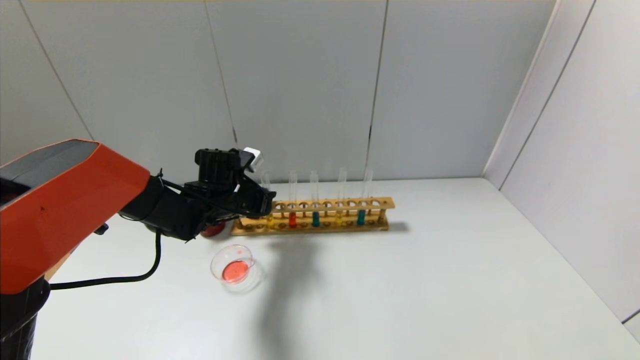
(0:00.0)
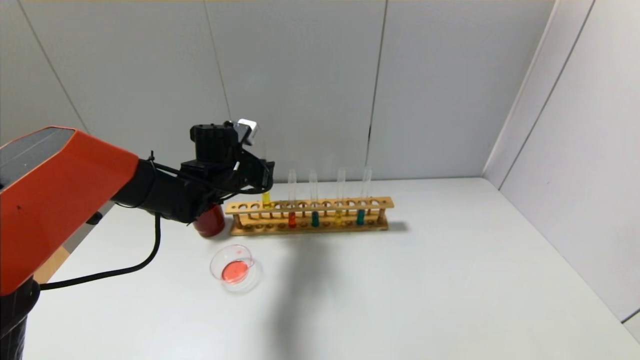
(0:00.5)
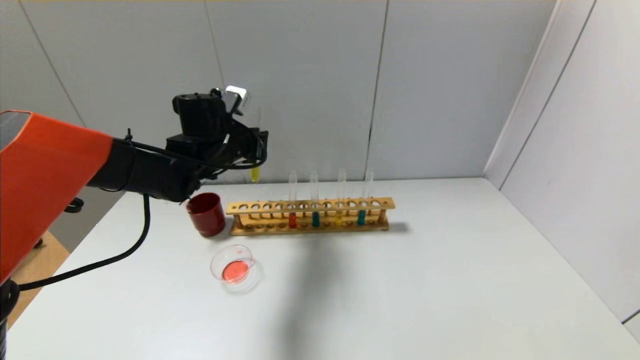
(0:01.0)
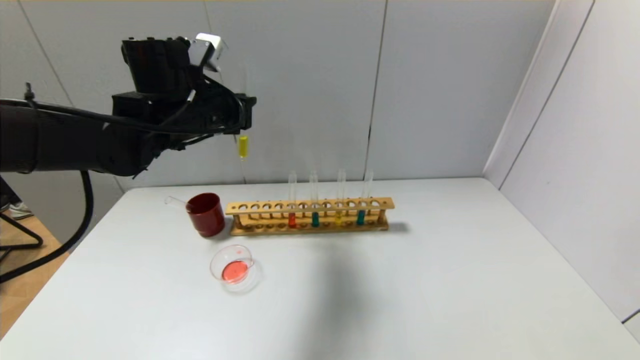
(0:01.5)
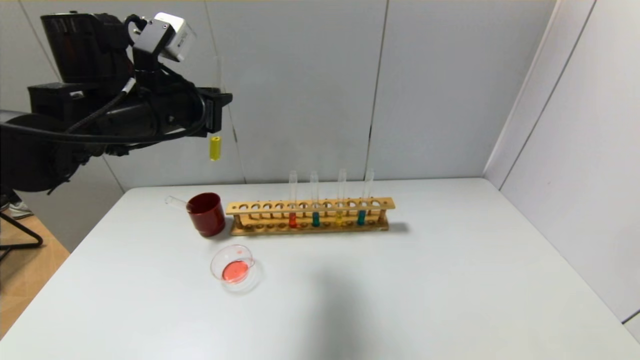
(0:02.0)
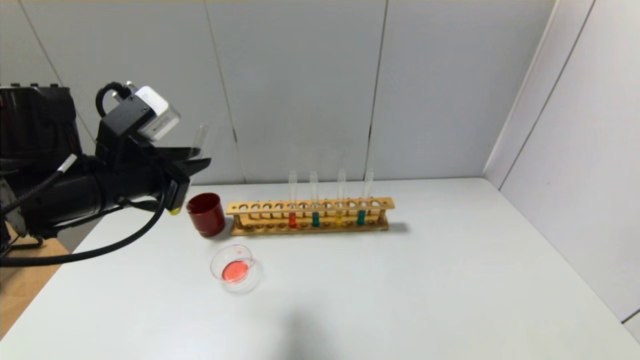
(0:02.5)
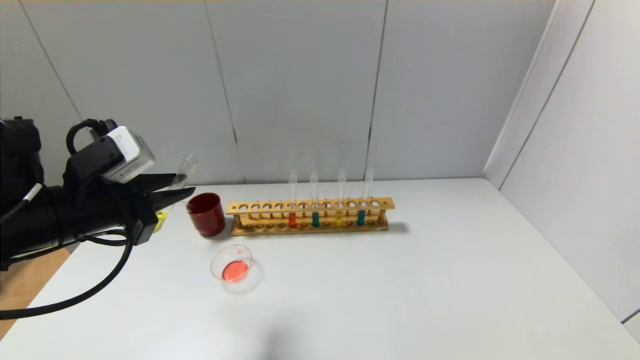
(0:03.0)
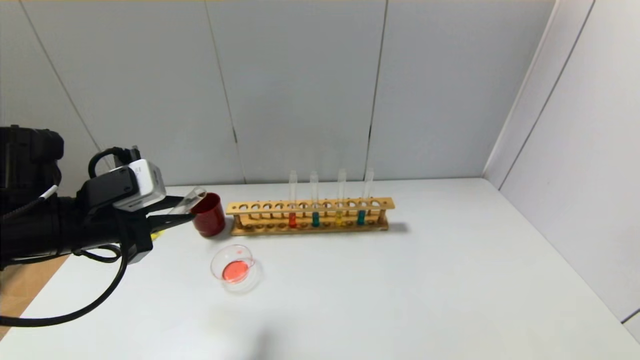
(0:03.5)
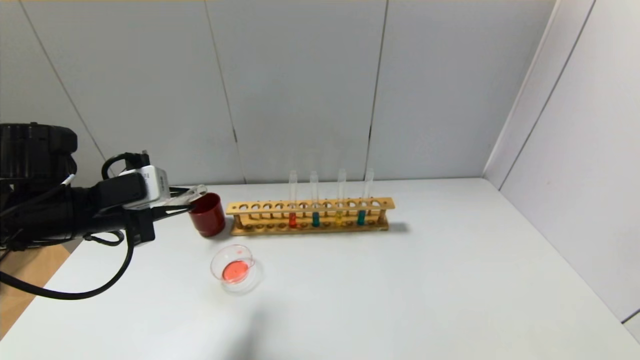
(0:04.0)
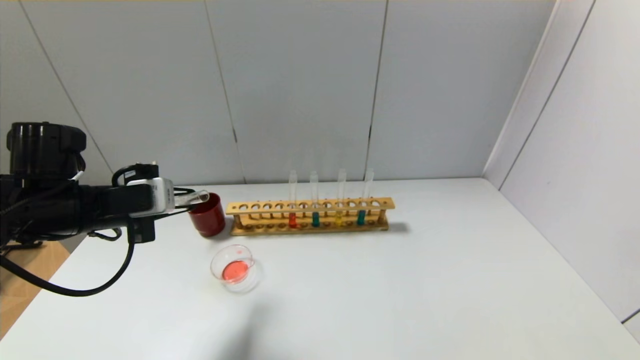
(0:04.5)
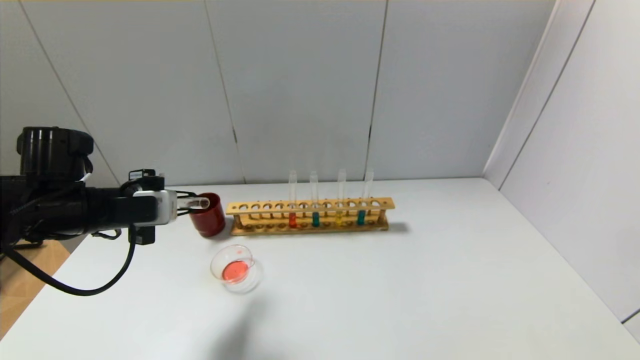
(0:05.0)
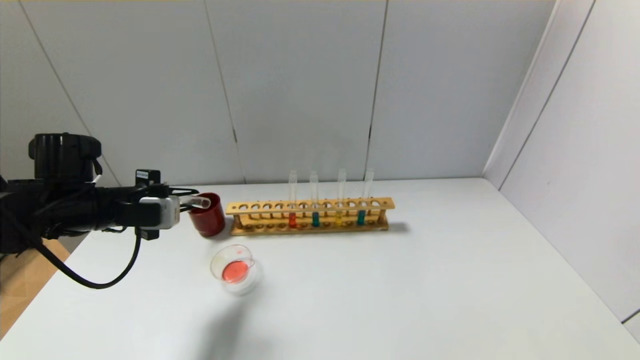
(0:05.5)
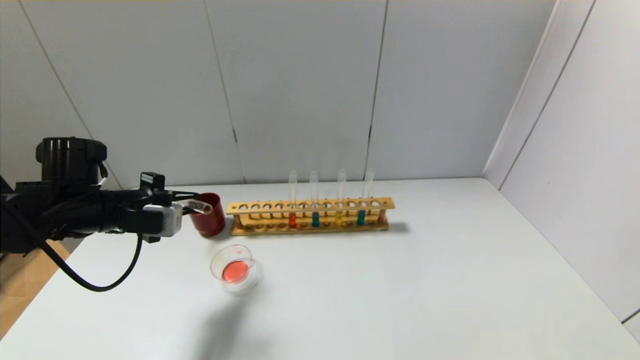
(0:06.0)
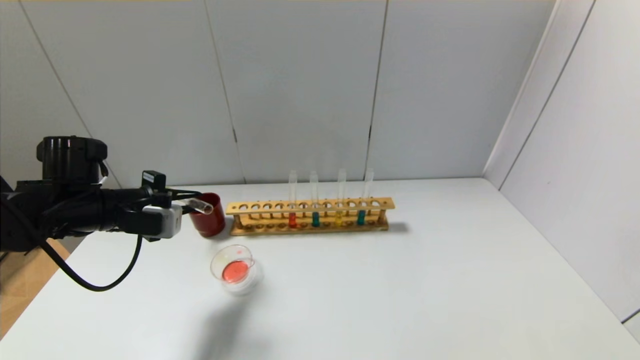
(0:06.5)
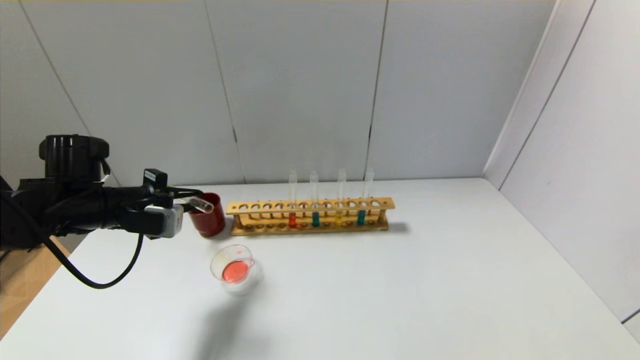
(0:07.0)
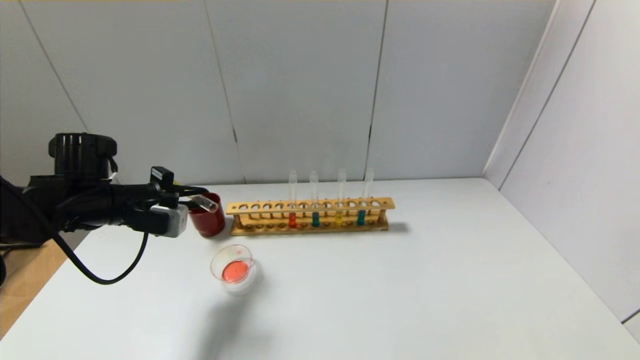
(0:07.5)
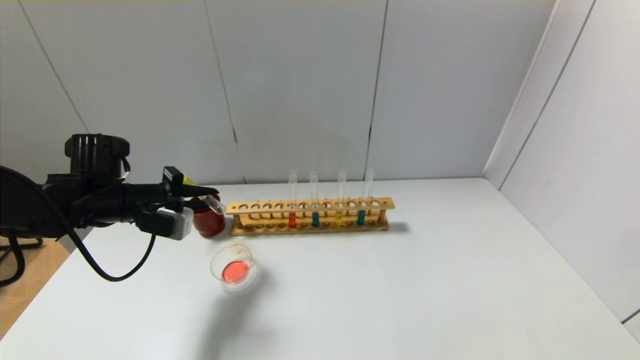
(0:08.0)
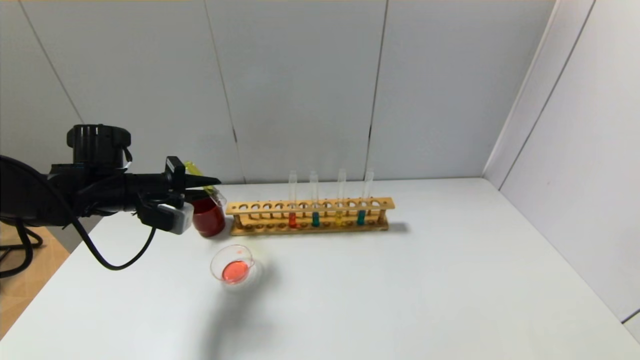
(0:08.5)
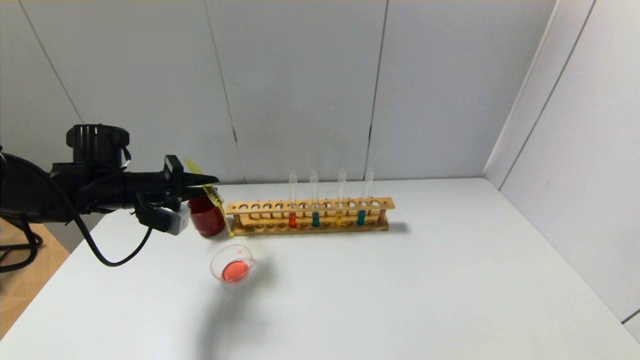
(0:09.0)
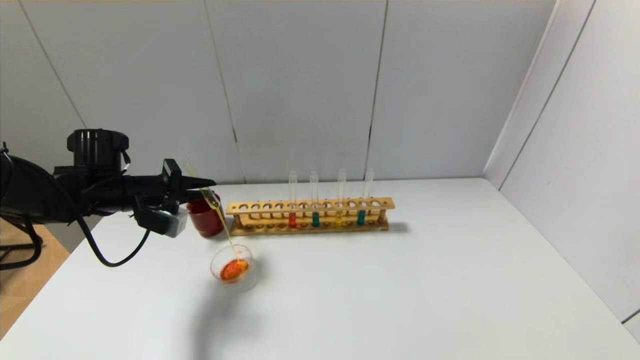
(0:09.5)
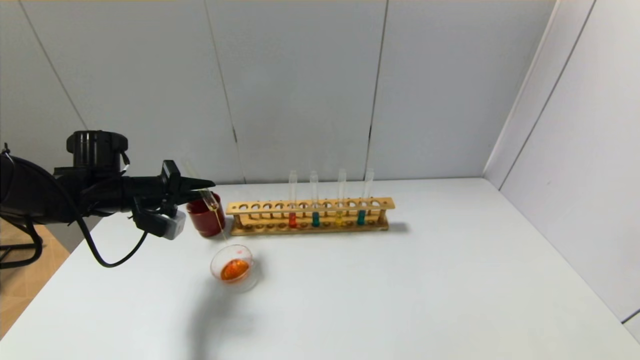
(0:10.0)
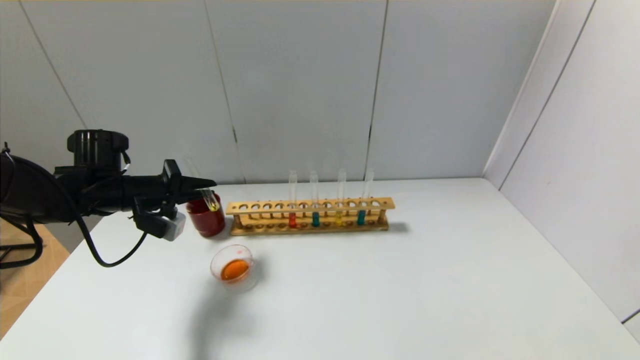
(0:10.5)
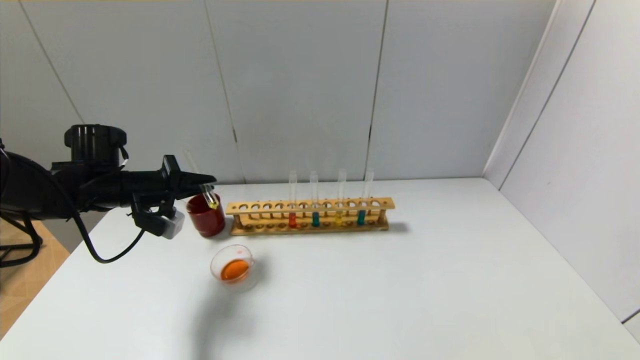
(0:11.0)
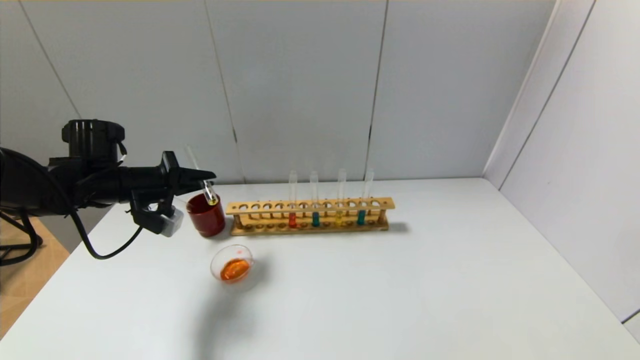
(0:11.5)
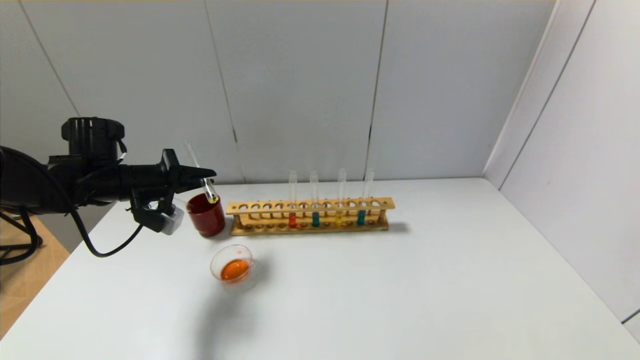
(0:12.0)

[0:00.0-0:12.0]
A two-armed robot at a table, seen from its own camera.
0:00.0 to 0:02.0: The left gripper heads upward and backward, covering roughly 20 cm.
0:02.0 to 0:04.0: The left gripper heads downward and to the left, covering about 15 cm.
0:04.0 to 0:06.0: The left gripper shifts by approximately 5 cm.
0:06.0 to 0:08.0: The grippers move only a little.
0:08.0 to 0:10.0: There are only small adjustments of the grippers.
0:10.0 to 0:12.0: The grippers move only a little.

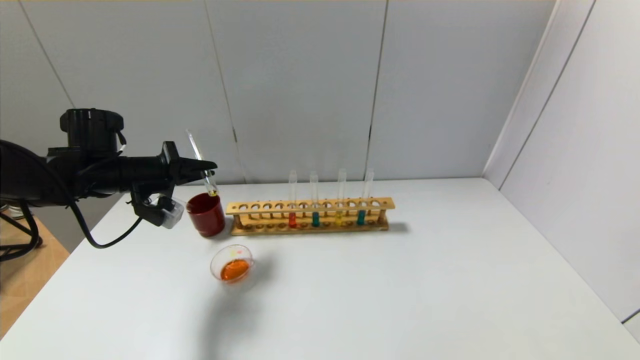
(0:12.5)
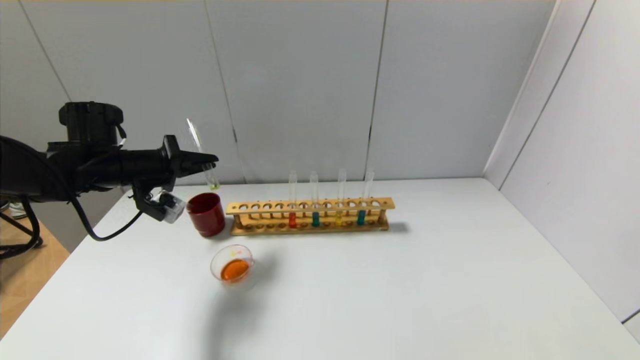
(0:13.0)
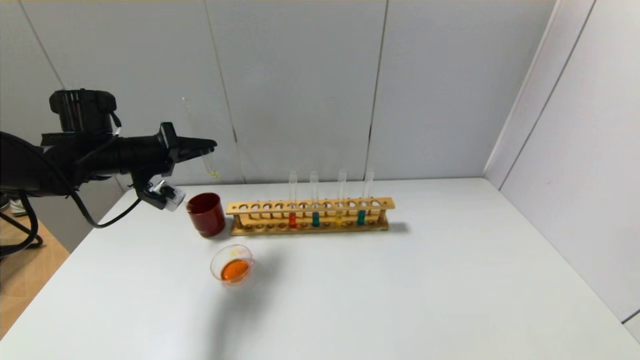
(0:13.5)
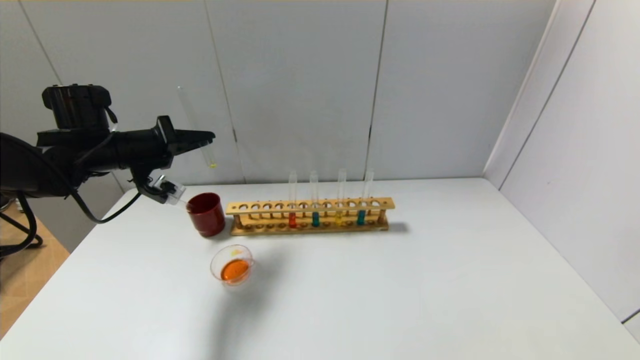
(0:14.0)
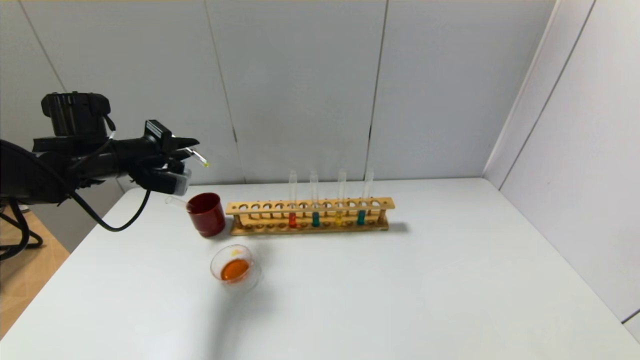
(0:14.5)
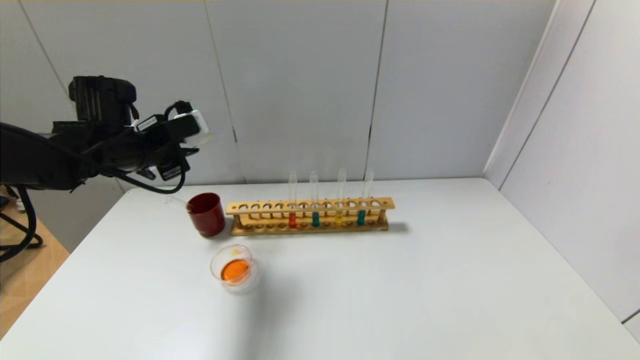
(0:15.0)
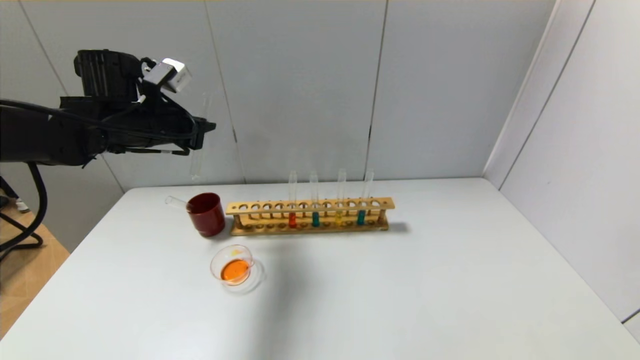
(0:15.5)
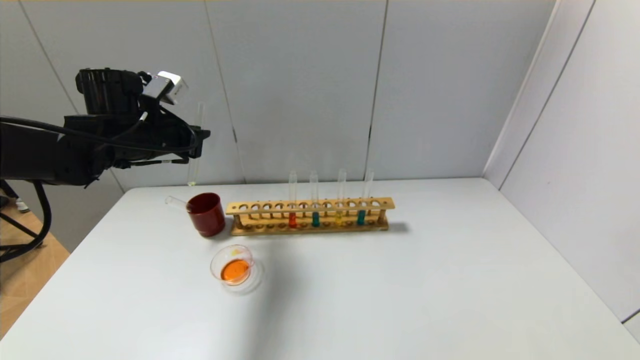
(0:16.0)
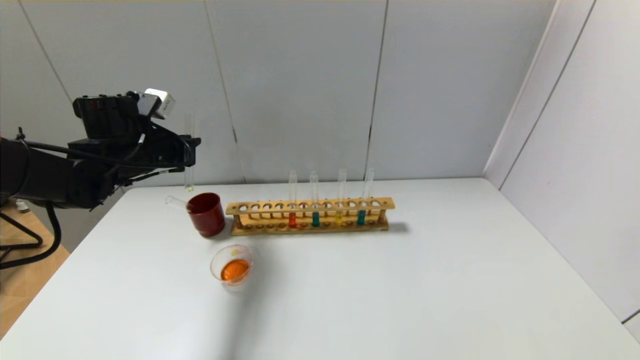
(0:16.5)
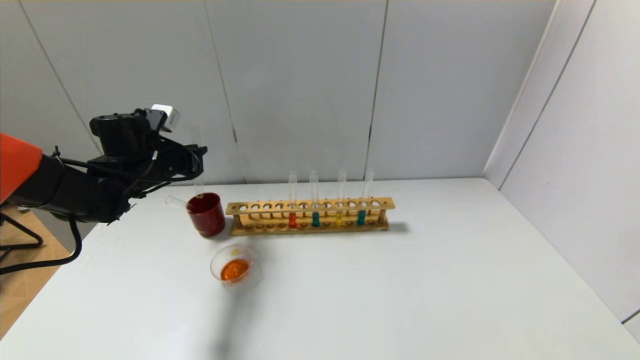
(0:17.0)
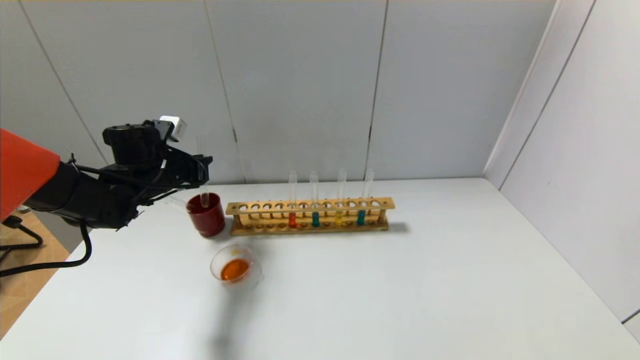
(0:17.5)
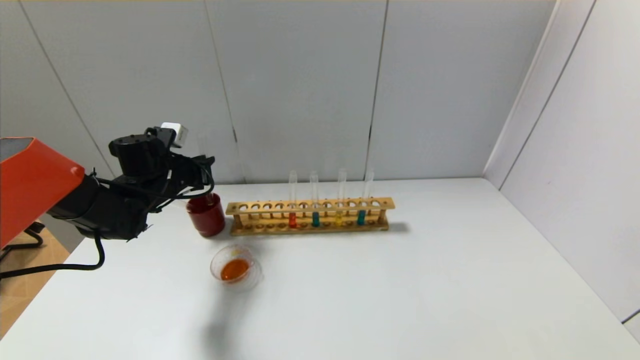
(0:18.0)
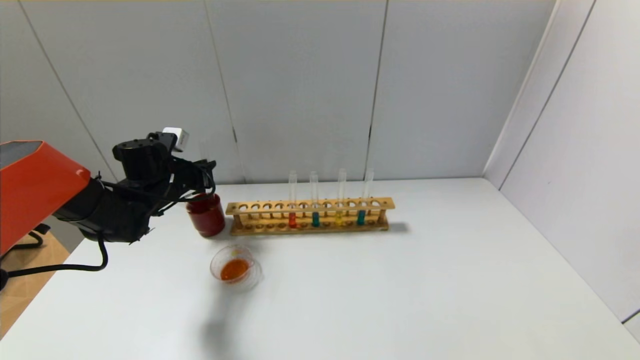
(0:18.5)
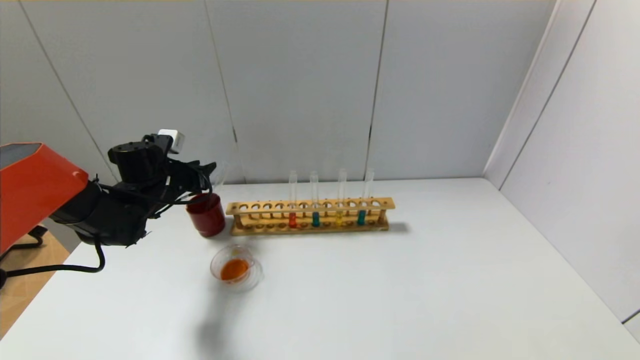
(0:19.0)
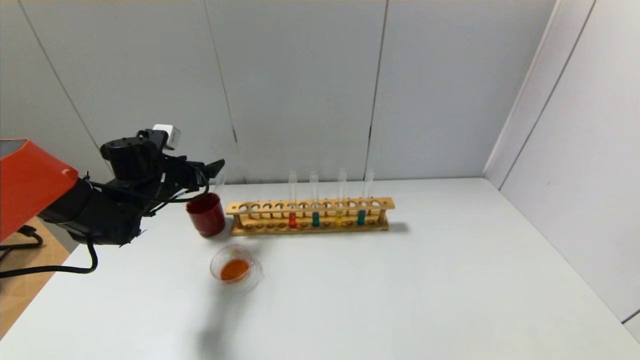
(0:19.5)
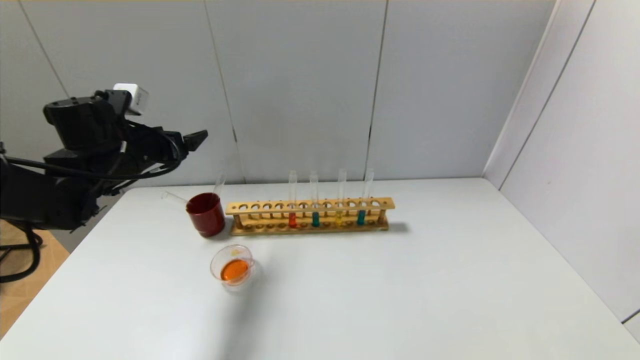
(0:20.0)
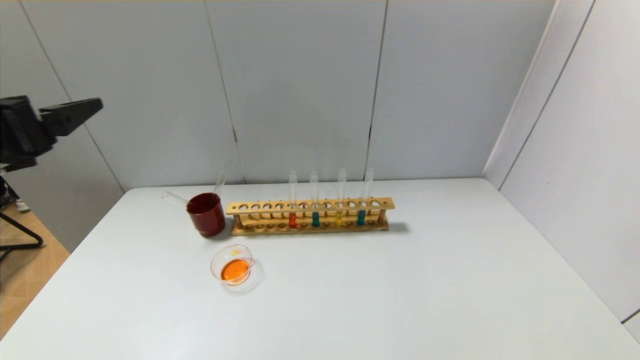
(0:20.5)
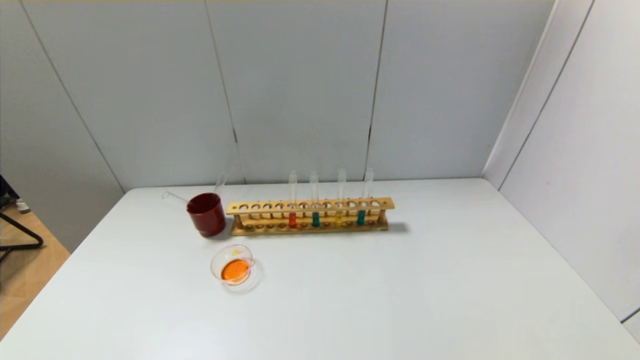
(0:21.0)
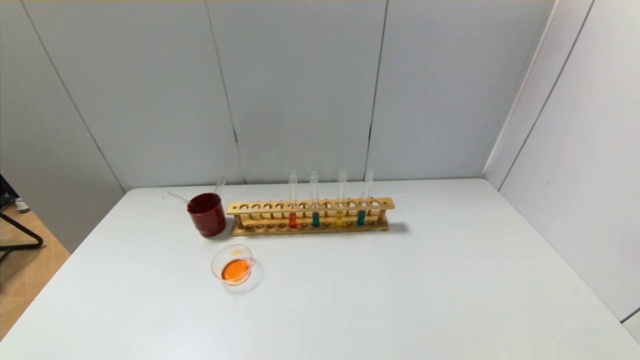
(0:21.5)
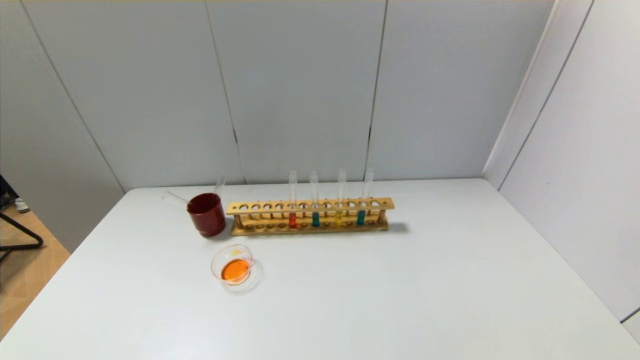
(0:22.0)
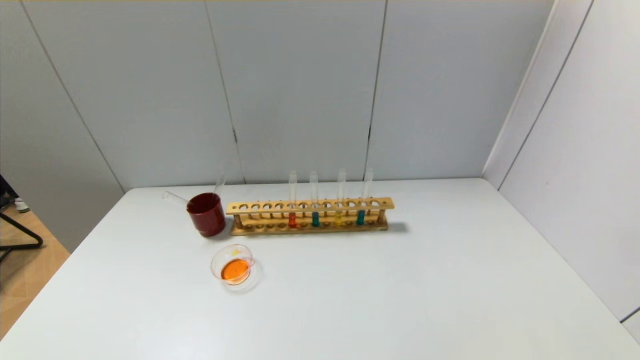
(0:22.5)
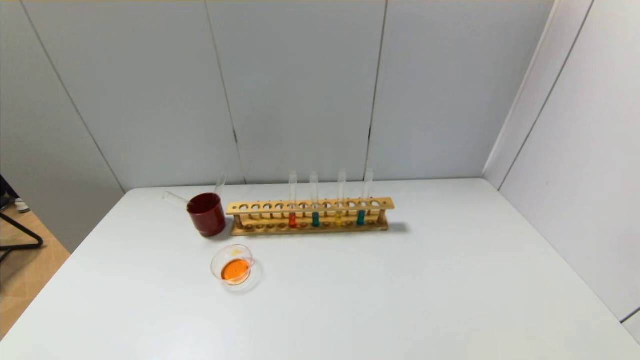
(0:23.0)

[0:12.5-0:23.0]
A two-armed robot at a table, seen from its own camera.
Step, 0:14.5 to 0:19.0: Place the test tube into the brown cup with the left gripper.
0:16.5 to 0:19.0: The left gripper heads downward, covering approximately 10 cm, and opens up.
0:19.0 to 0:21.0: The left gripper travels backward by approximately 40 cm, and opens its fingers.
